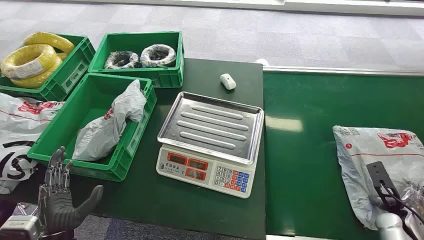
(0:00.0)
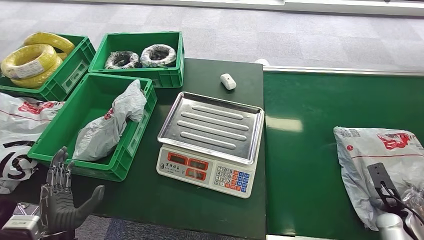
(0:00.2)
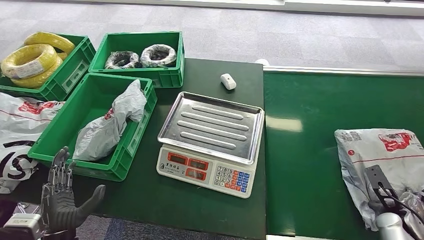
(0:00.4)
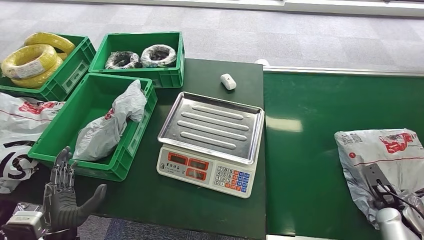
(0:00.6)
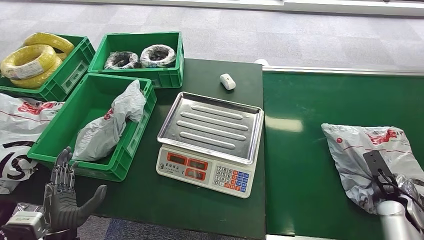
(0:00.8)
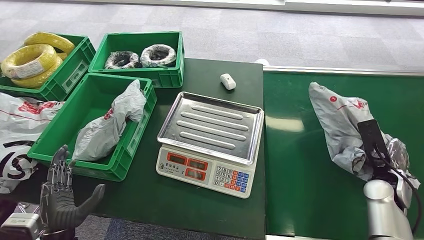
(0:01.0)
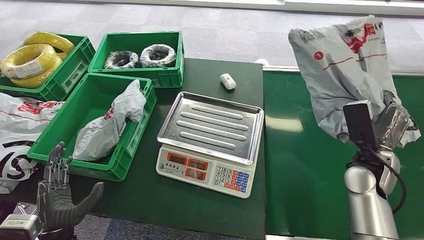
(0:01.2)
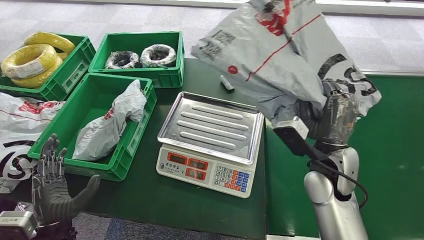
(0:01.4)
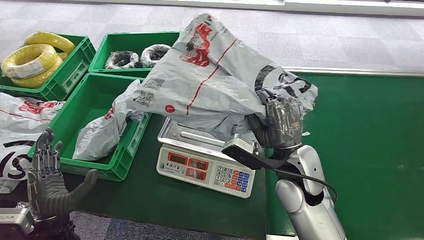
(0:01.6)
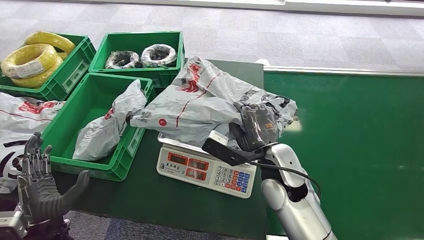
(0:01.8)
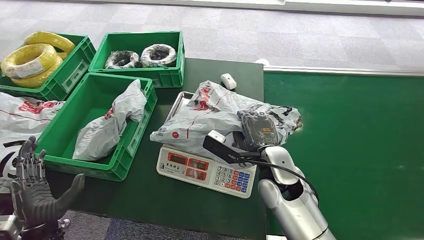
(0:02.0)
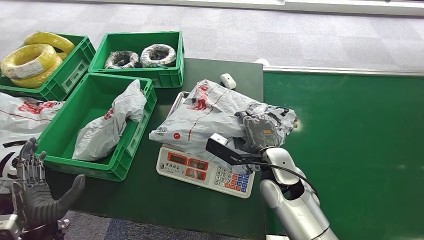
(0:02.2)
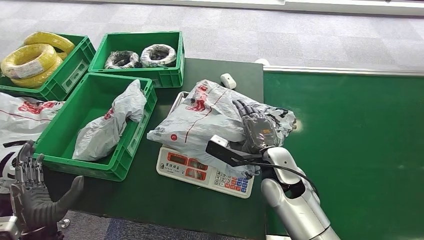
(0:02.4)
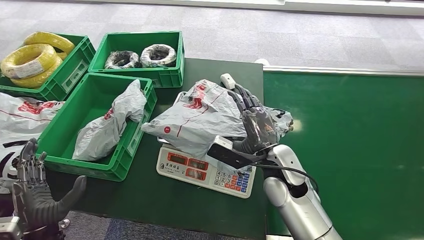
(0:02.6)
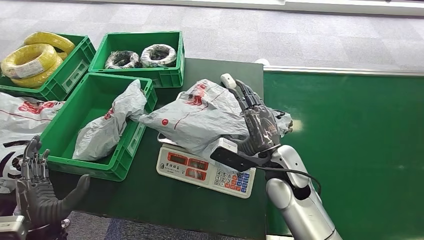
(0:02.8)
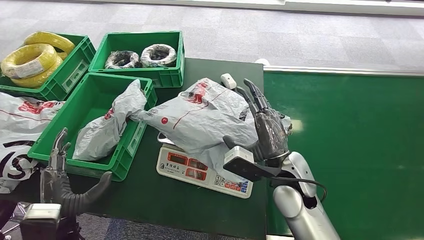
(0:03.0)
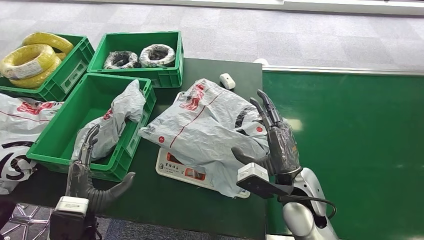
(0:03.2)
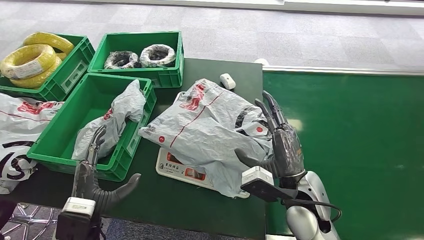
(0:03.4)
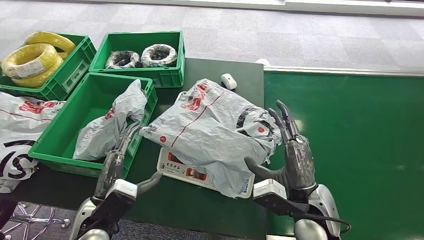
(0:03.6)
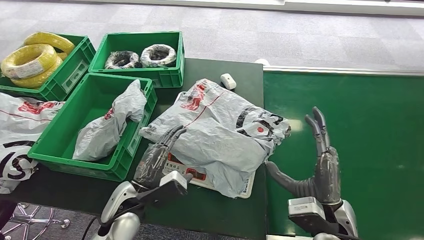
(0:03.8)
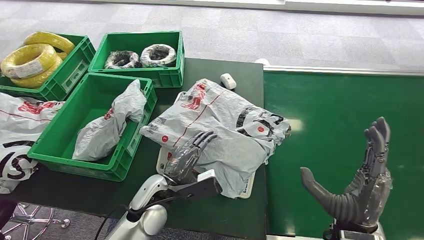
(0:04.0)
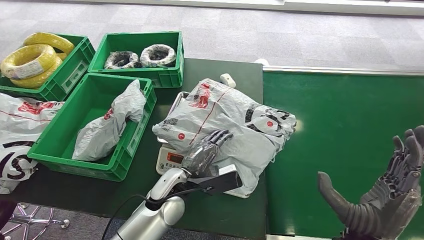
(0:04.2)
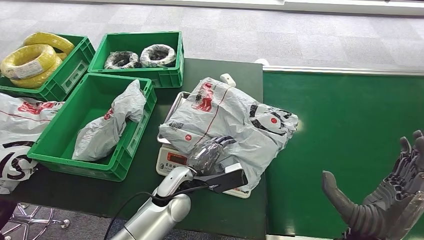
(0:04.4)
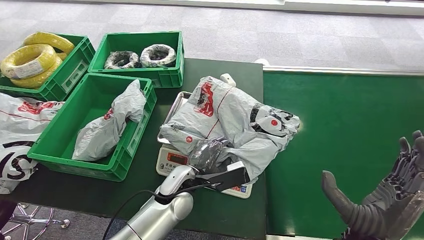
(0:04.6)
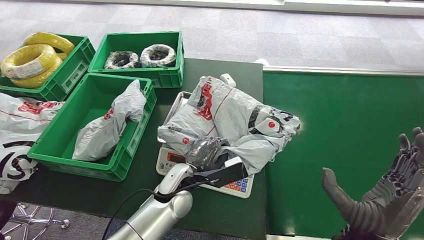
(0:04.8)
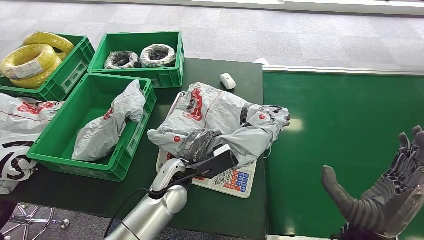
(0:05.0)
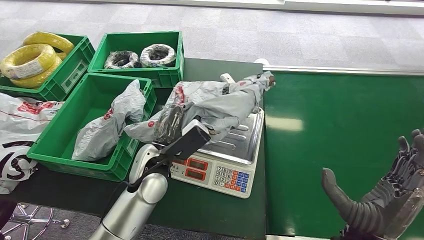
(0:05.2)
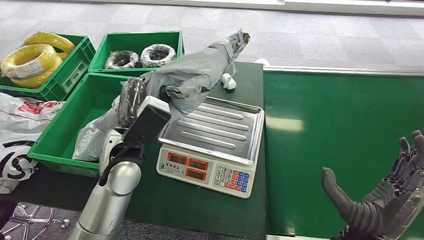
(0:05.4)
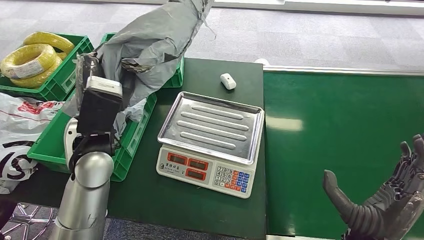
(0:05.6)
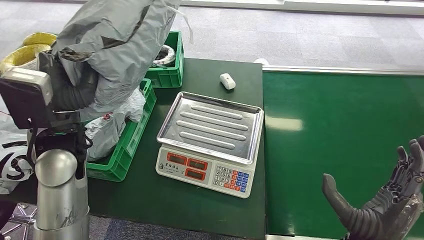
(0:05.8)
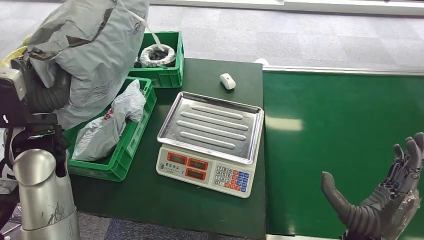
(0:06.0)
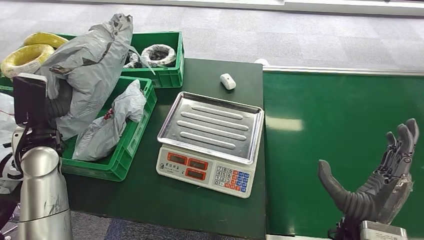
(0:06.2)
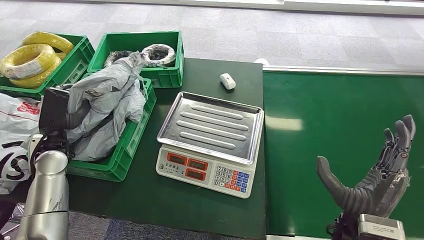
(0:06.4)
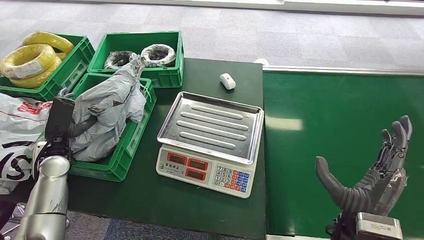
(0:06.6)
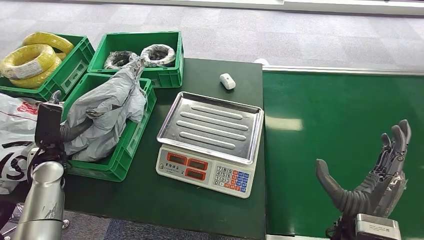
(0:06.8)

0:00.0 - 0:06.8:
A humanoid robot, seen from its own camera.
Step, 0:00.0 - 0:01.4: Pick up the package from the conveyor belt.
Step, 0:01.6 - 0:02.4: Place the package onto the inbound machine.
Step, 0:02.6 - 0:05.4: Pick up the package from the inbound machine.
Step, 0:05.6 - 0:06.8: Place the package into the parcel locker.
0:02.8 - 0:04.0: The right hand goes about 15 cm backward and to the right. Meanwhile the left hand heads to the right and forward, covering roughly 20 cm.

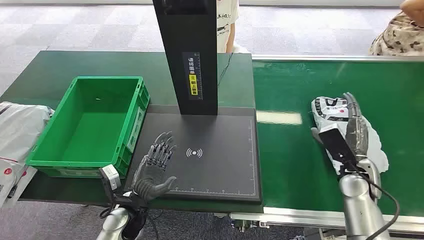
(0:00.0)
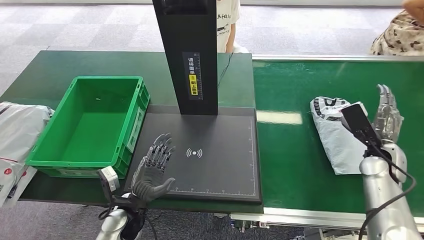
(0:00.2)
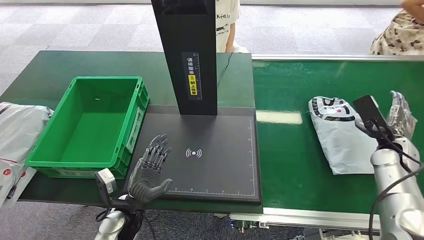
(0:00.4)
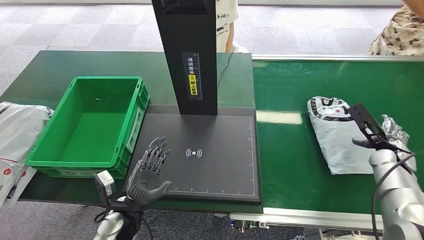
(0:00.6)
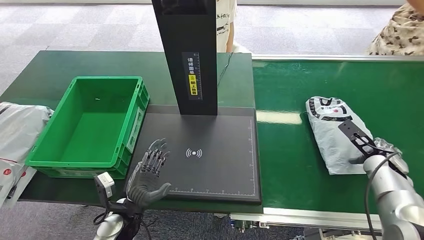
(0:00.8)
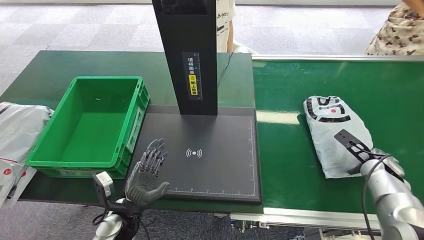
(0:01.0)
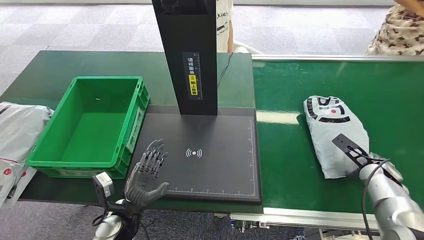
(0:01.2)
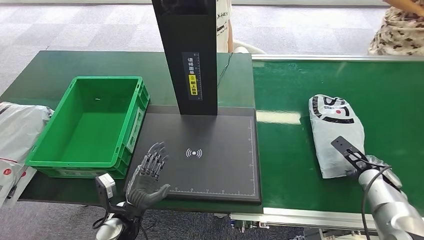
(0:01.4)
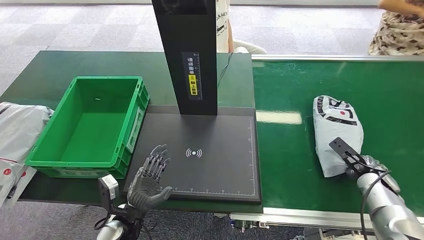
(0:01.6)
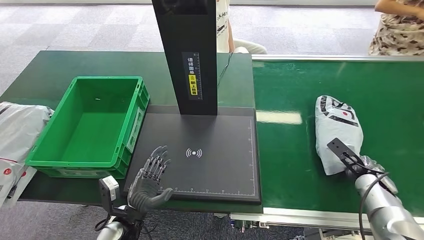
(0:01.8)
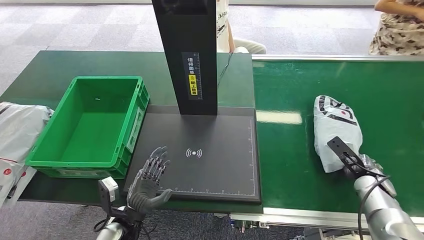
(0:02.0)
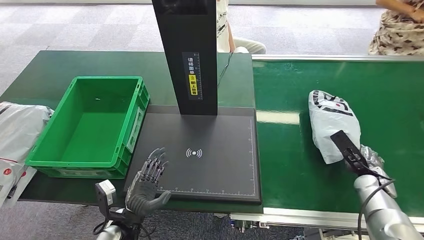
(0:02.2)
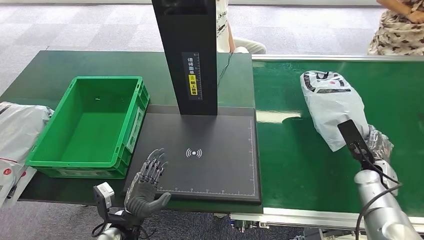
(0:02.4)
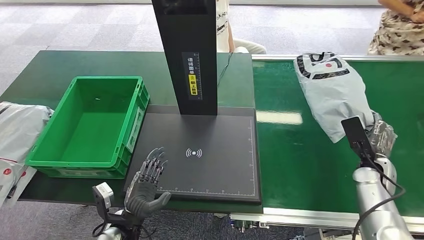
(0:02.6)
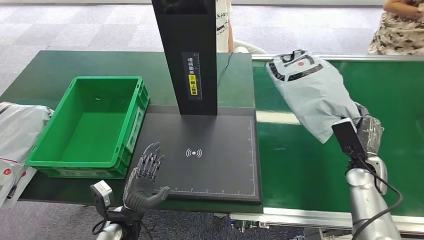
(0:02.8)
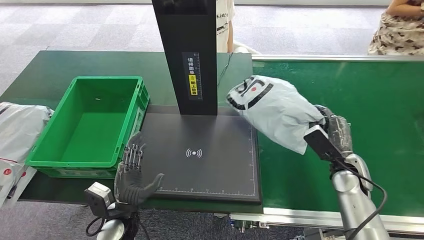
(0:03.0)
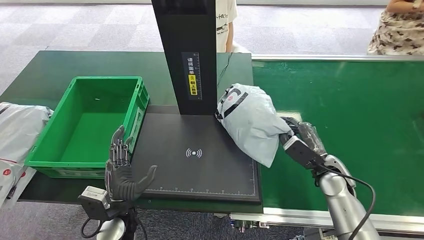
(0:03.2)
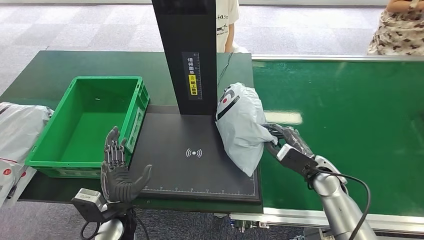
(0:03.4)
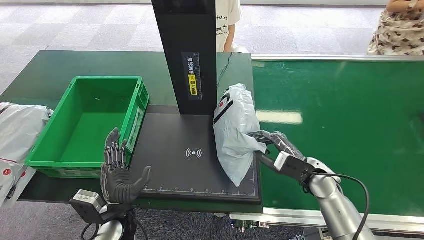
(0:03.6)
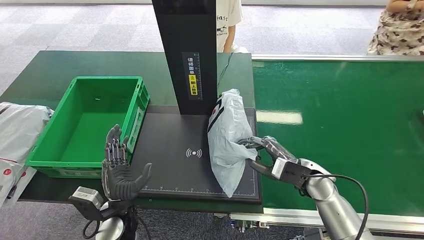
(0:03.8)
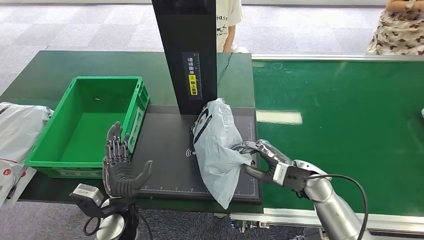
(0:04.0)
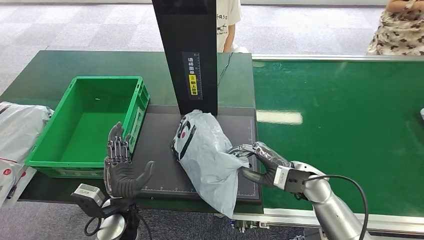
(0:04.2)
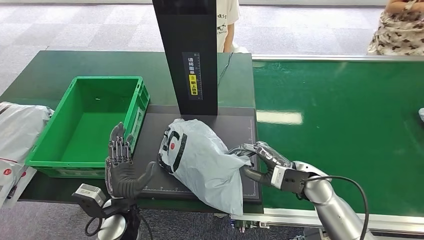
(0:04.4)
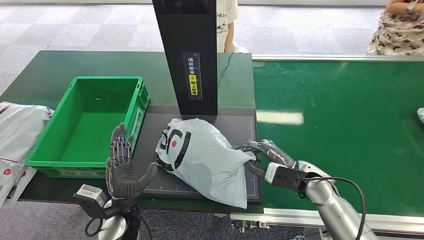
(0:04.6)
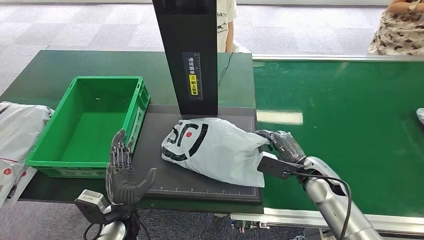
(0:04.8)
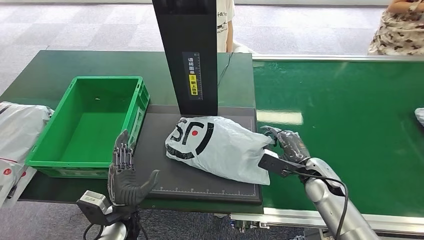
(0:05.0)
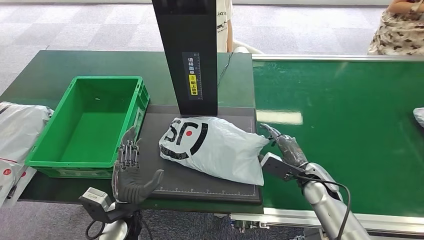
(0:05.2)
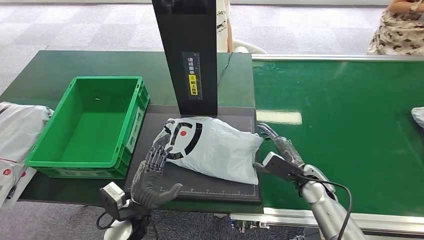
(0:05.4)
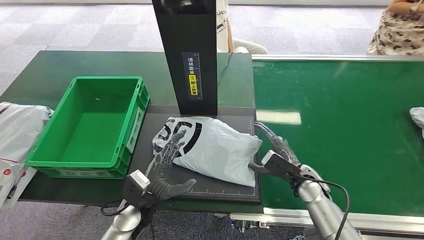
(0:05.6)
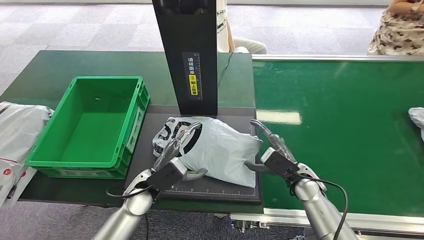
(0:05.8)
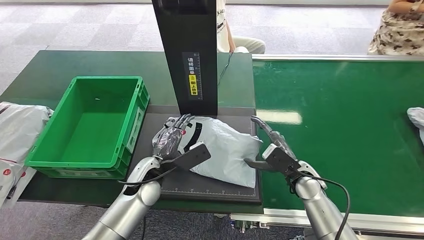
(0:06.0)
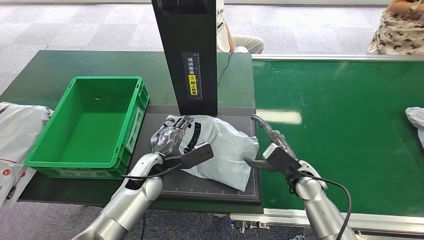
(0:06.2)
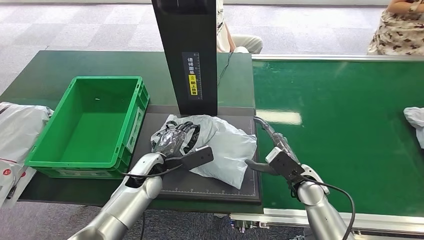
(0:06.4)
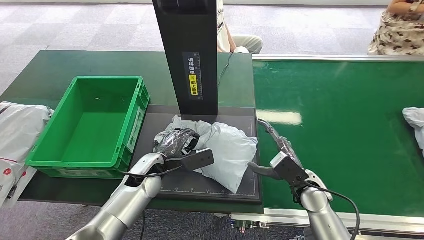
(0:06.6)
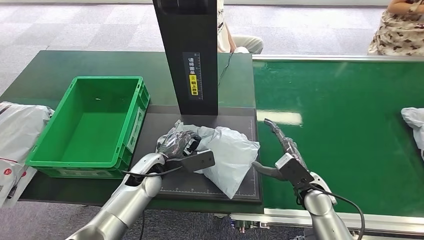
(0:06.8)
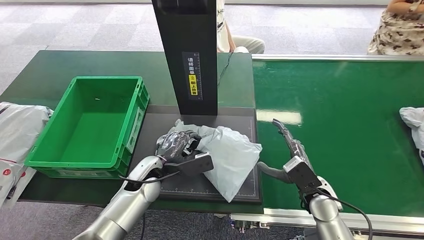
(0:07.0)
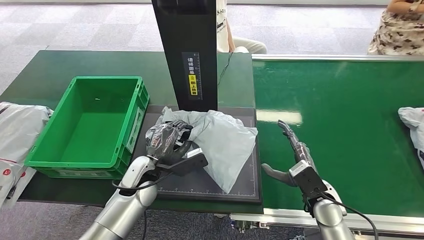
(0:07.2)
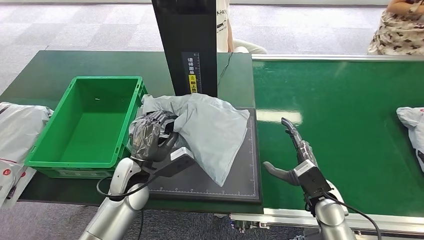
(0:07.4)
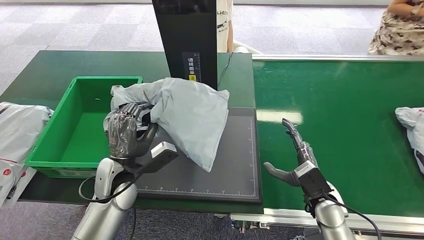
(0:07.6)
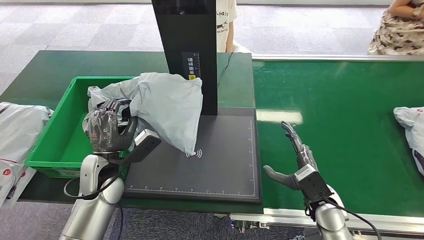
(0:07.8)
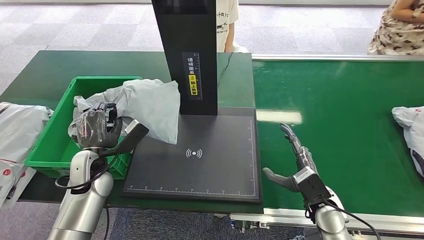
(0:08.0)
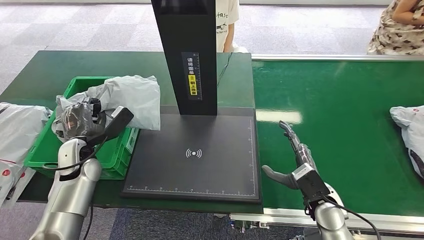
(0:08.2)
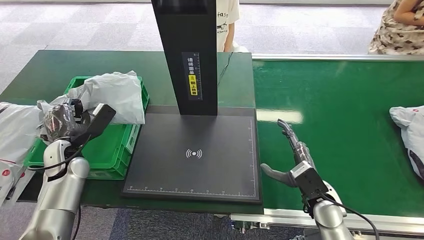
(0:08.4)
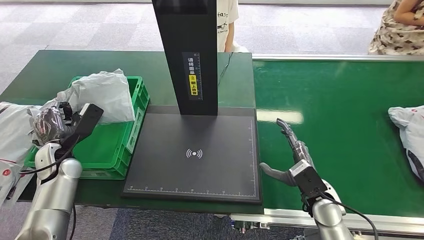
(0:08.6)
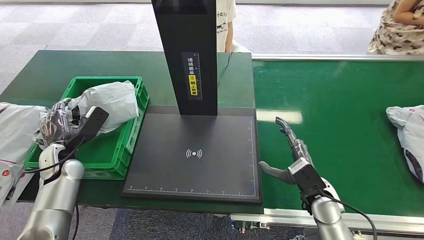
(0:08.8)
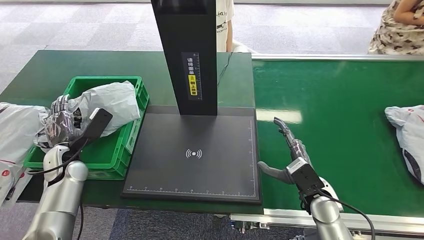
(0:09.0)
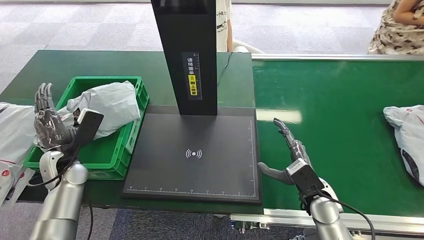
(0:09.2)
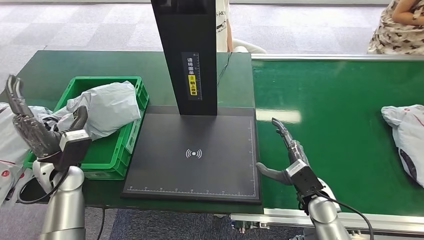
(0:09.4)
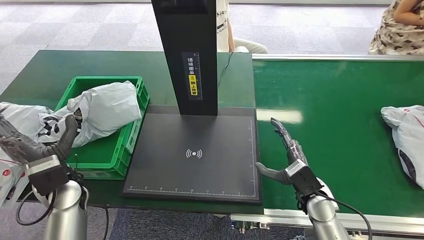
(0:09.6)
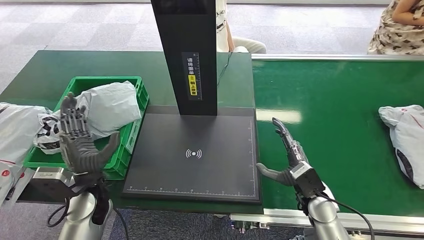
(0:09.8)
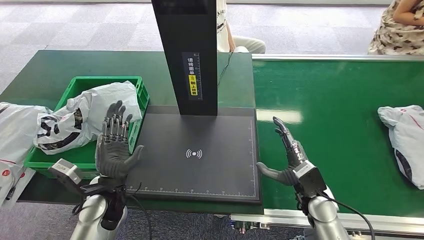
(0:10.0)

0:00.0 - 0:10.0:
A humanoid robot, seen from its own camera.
Step, 0:00.0 - 0:02.4: Pick up the package from the conveyor belt.
Step, 0:02.6 - 0:05.8: Place the package onto the inbound machine.
Step, 0:06.0 - 0:07.6: Pick up the package from the inbound machine.
Step, 0:07.8 - 0:10.0: Place the package into the parcel locker.
0:01.4 - 0:02.8: The right hand heads to the left, covering approximately 5 cm.
0:04.2 - 0:05.8: The right hand shifts approximately 5 cm downward. Meanwhile the left hand is displaced forward by about 5 cm.
0:05.8 - 0:07.2: The right hand heads backward, covering approximately 5 cm.
0:08.6 - 0:10.0: The left hand is displaced to the right and backward by approximately 20 cm.
